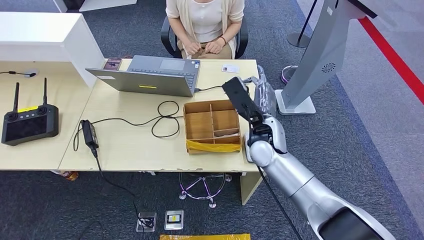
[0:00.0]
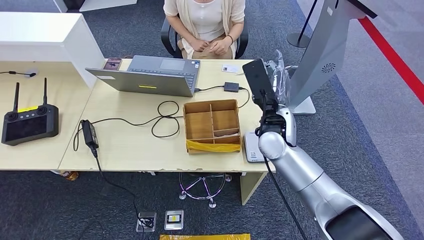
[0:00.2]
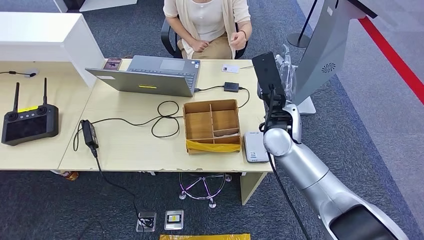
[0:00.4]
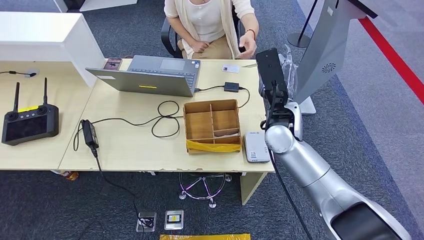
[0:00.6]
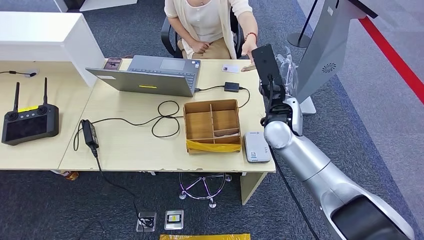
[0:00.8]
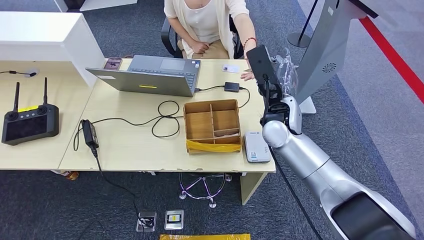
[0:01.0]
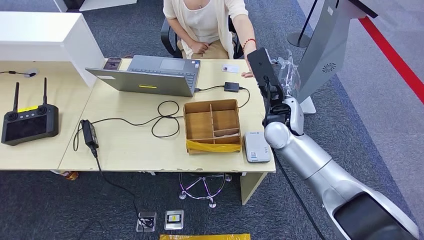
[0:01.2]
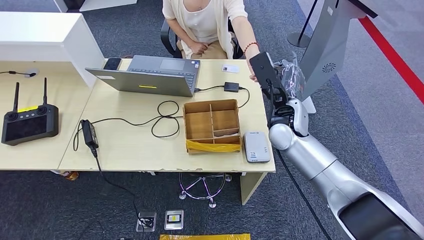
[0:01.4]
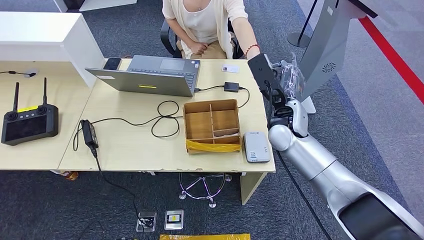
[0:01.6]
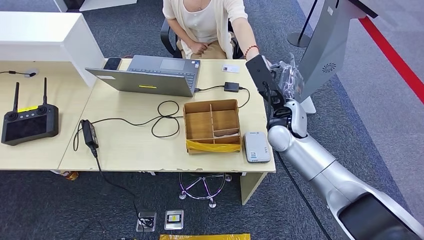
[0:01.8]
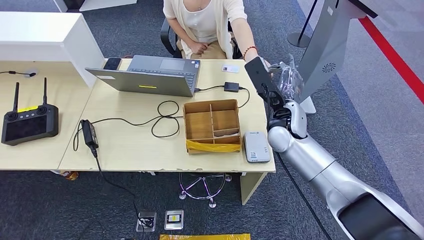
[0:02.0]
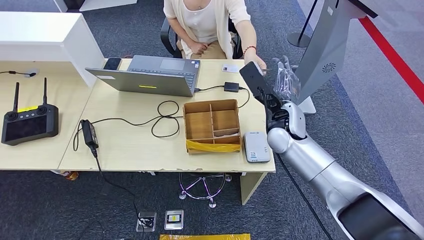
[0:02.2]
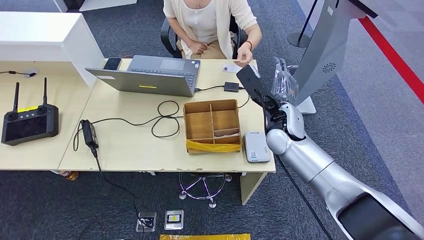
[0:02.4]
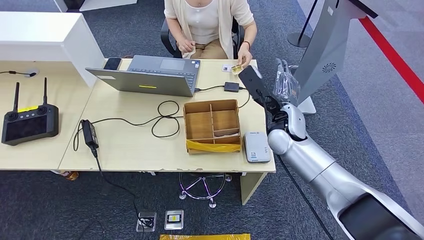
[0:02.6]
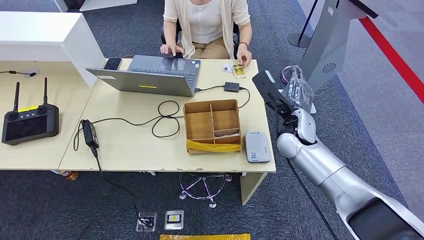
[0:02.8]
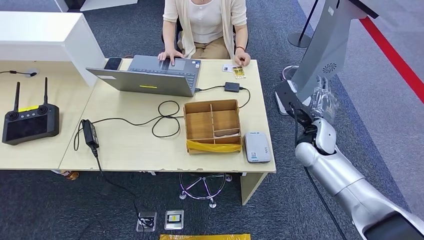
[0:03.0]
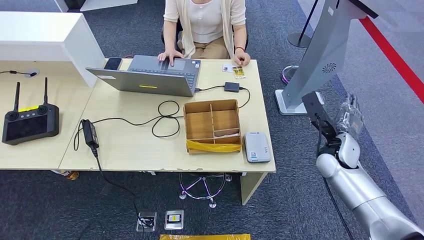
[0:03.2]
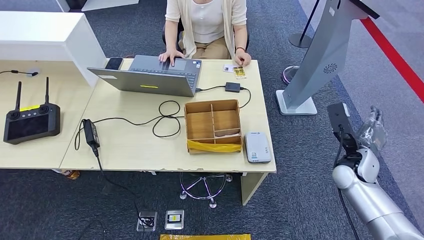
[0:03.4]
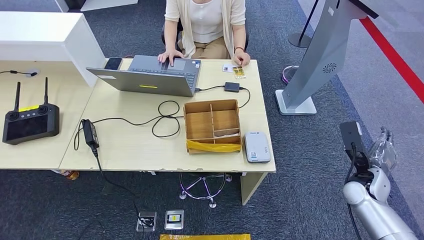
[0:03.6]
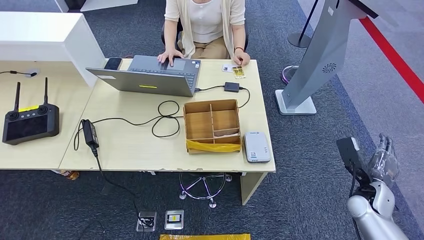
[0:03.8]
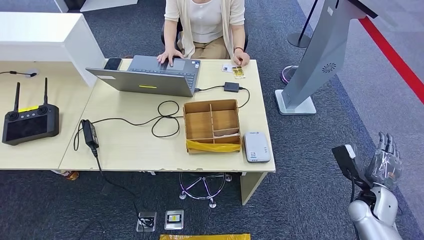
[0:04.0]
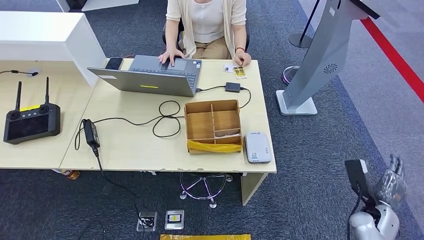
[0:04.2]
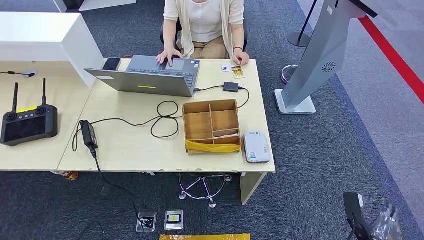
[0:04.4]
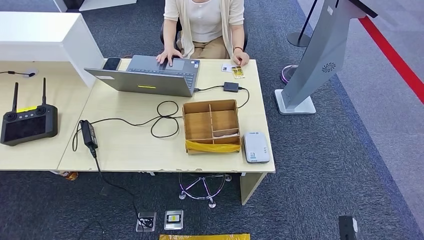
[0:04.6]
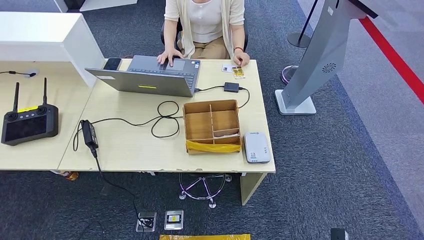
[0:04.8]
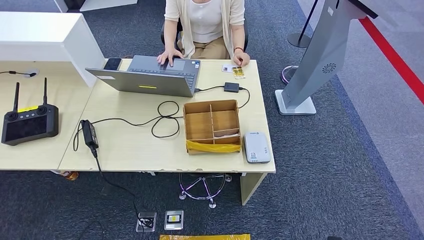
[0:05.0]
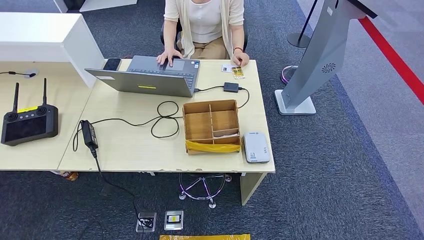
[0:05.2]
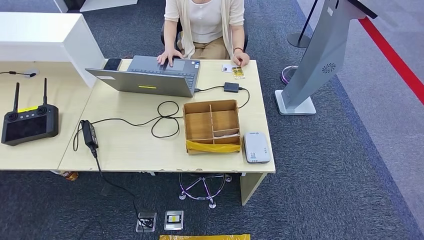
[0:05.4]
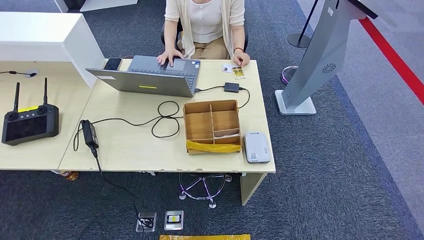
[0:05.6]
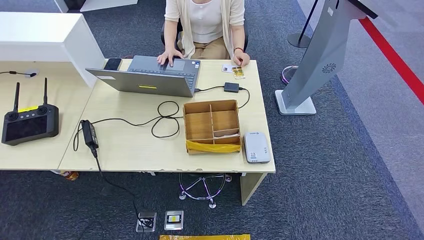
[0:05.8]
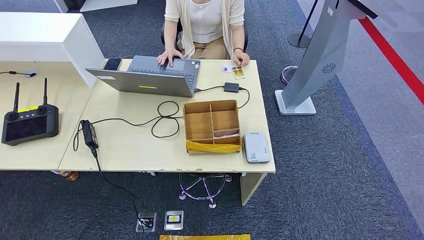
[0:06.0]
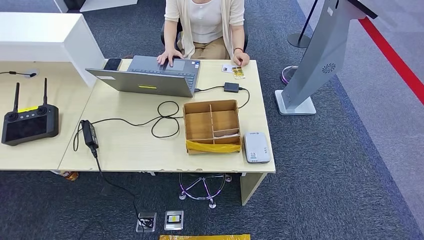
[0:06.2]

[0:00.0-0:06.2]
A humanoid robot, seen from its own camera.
Step, 0:00.8 to 0:06.2: Hand the room key to the person.
0:00.0 to 0:01.6: The right hand is displaced to the right by roughly 5 cm.
0:01.6 to 0:03.2: The right hand heads to the right and downward, covering some 15 cm.
0:03.2 to 0:04.6: The right hand travels backward and downward by about 35 cm.
0:04.6 to 0:06.2: The right hand shifts some 15 cm to the left.
